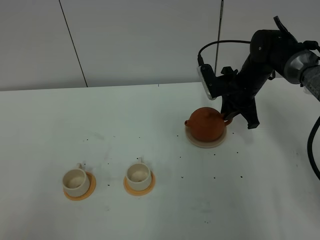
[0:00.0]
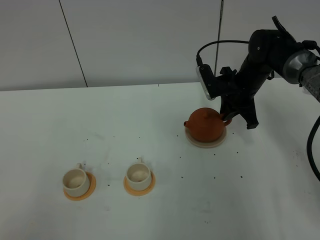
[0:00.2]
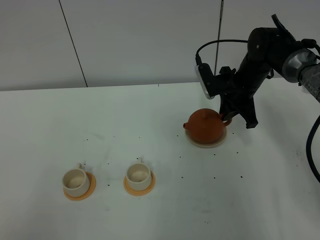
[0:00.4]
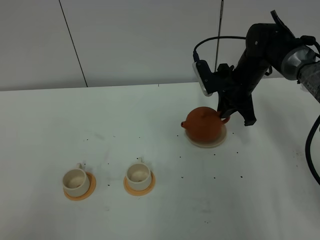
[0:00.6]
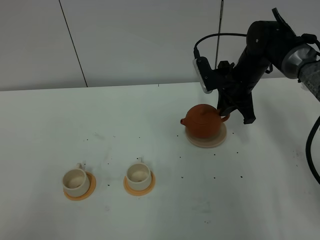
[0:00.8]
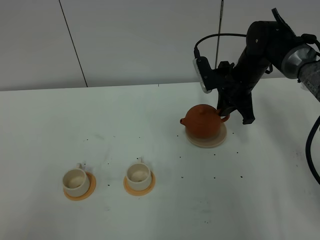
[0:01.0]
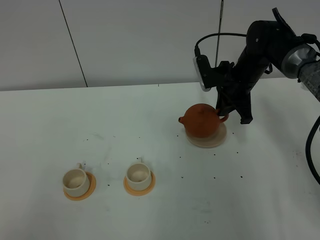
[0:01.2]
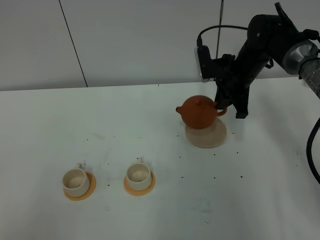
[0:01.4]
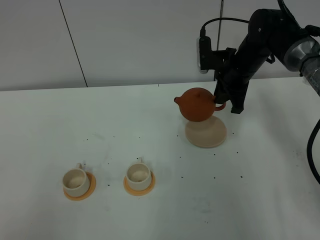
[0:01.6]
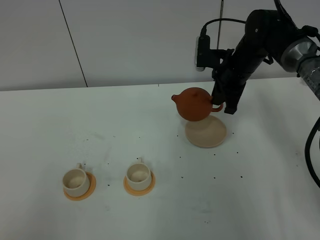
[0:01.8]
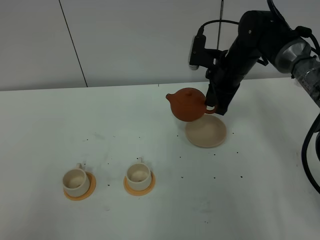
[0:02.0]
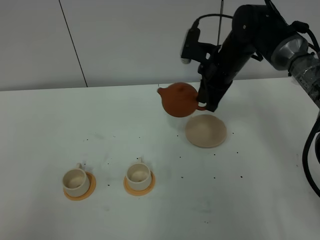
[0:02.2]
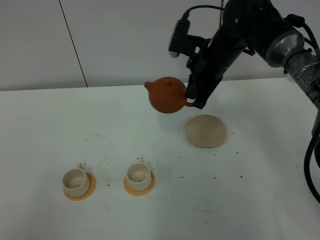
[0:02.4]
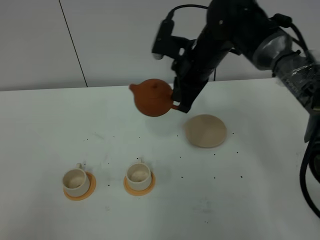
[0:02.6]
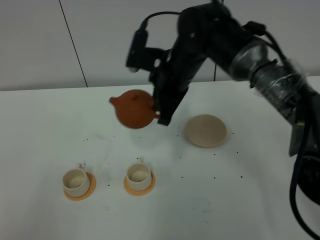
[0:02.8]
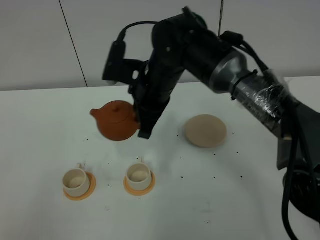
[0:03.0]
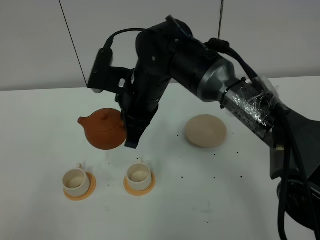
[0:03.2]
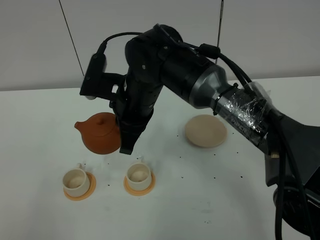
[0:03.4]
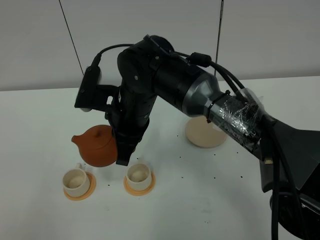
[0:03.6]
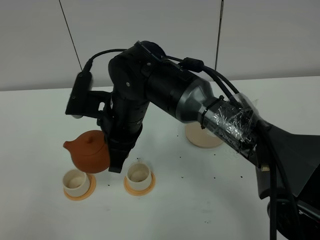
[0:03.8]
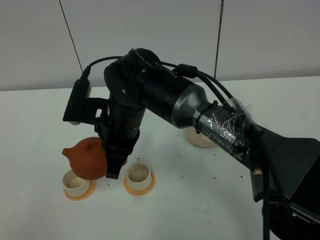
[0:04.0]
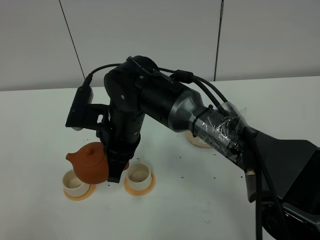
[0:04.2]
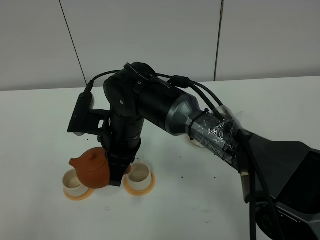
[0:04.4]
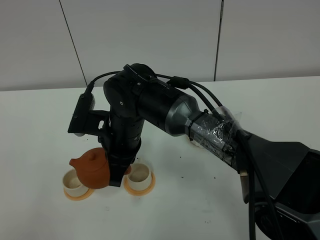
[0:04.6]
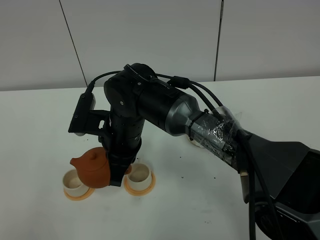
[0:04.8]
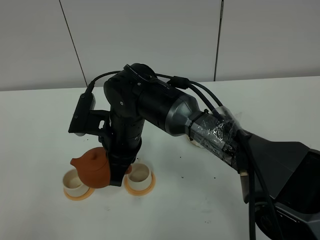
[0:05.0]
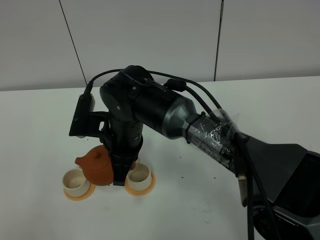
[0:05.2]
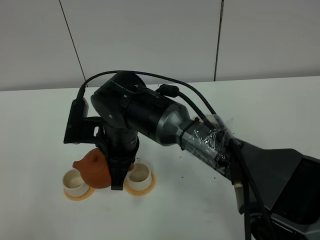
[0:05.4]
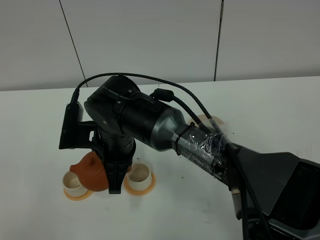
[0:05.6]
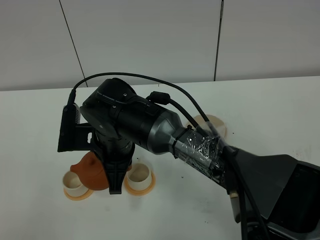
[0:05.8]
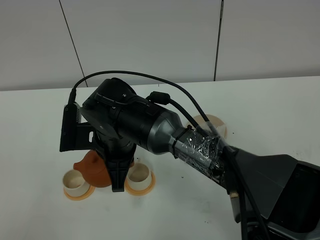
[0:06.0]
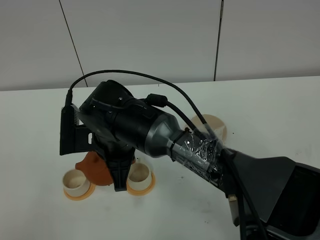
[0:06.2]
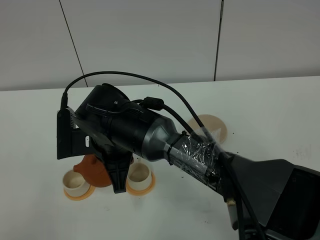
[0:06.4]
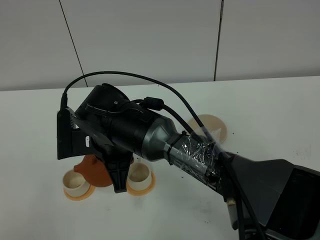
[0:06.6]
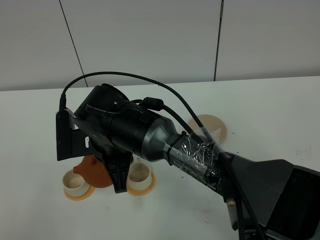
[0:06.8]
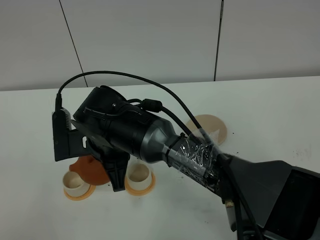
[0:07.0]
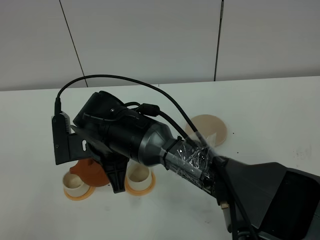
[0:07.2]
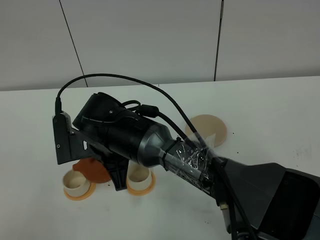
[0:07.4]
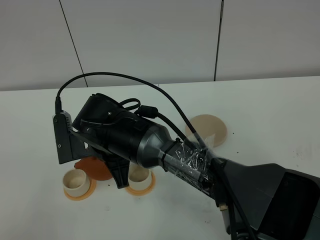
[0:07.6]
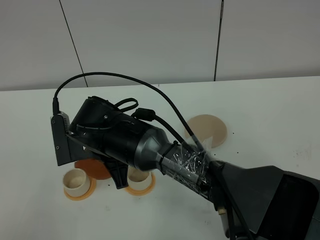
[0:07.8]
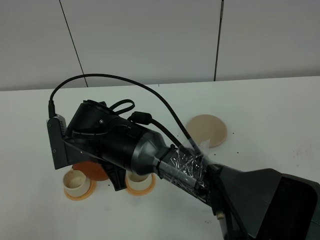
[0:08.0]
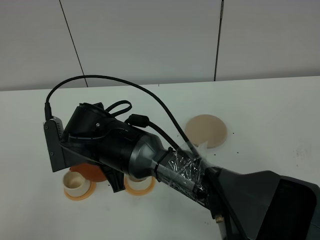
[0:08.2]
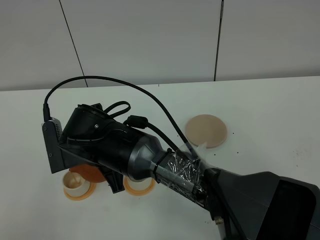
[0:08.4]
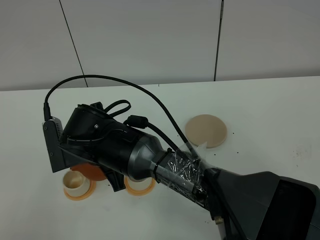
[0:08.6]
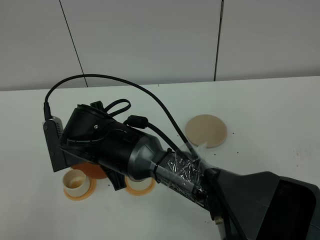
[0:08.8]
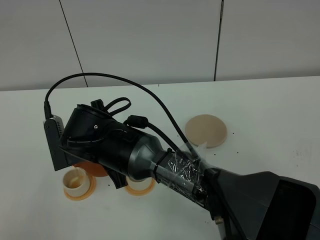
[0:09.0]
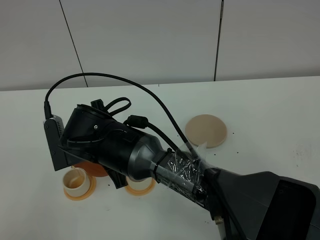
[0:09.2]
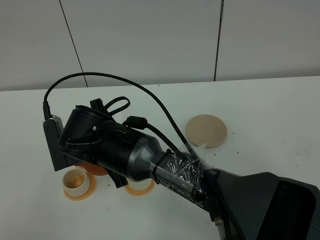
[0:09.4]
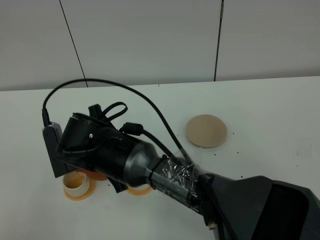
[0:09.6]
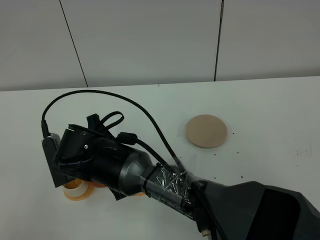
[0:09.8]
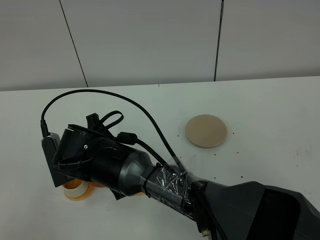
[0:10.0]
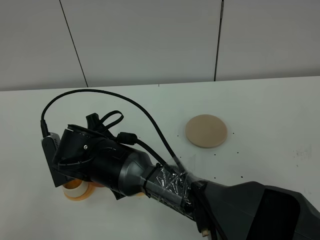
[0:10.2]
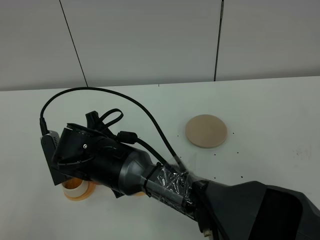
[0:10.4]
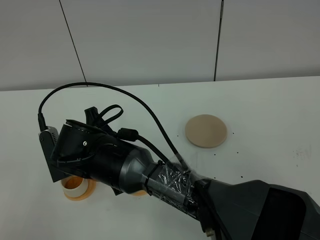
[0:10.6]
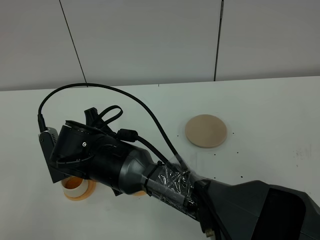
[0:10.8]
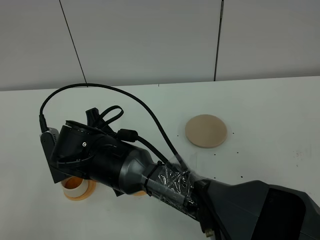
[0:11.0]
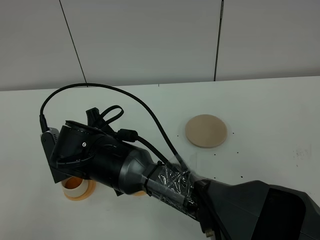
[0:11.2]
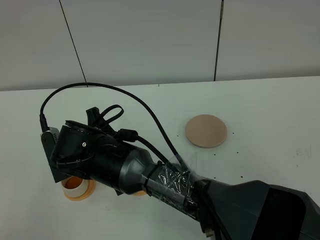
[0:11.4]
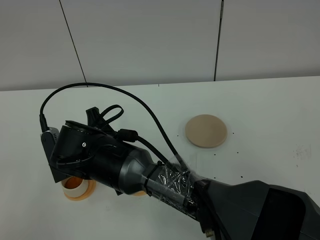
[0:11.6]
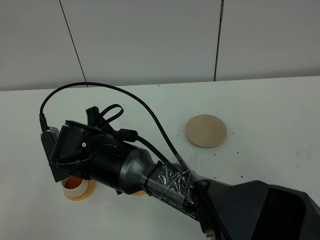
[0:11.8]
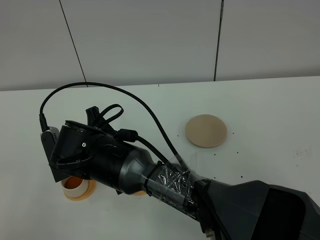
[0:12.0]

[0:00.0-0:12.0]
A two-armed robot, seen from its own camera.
Task of the whole recording: grasp the brown teapot and pour the tea into the two white teacups one by one, put the brown teapot back in its original place.
0:00.0 to 0:01.6: There are only small adjustments of the grippers.
0:01.6 to 0:03.0: The right gripper shifts about 20 cm to the left and backward.
0:03.0 to 0:04.4: The right gripper is displaced to the left and downward by about 10 cm.
0:04.4 to 0:06.0: The grippers stay close to where they were, moving slightly.
0:06.0 to 0:07.6: The grippers stay close to where they were, moving slightly.
0:07.6 to 0:10.4: The grippers make only small movements.
0:10.4 to 0:12.0: Neither gripper changes place.

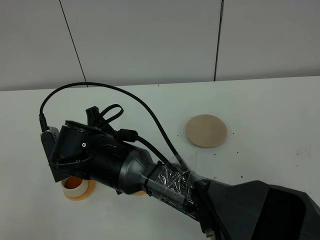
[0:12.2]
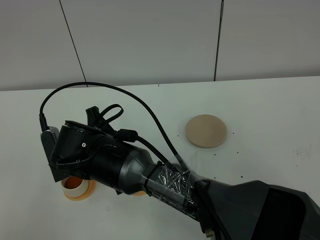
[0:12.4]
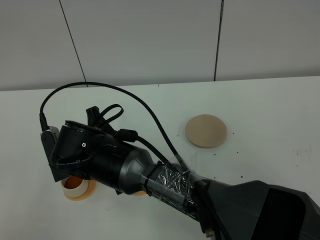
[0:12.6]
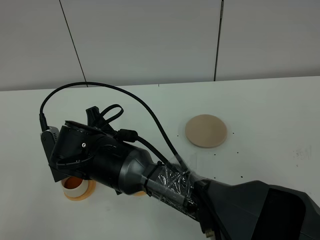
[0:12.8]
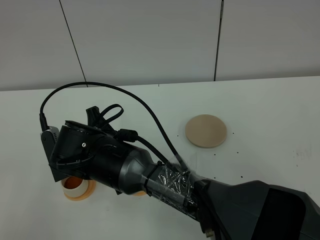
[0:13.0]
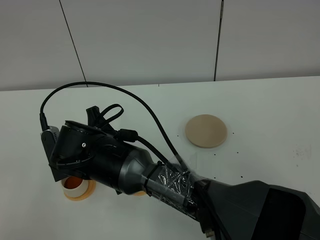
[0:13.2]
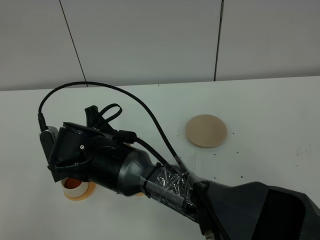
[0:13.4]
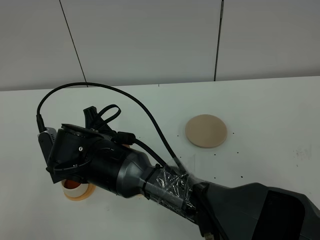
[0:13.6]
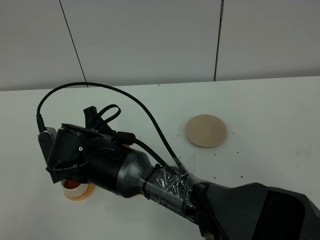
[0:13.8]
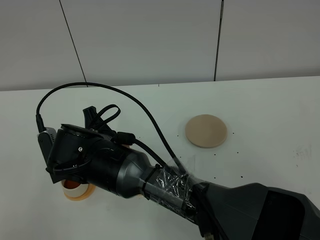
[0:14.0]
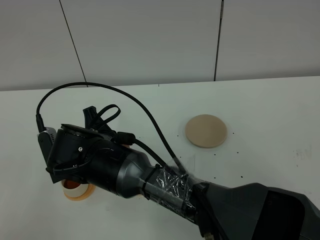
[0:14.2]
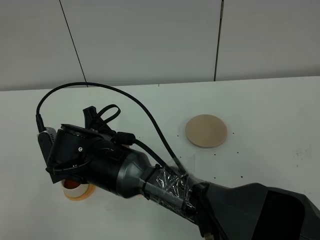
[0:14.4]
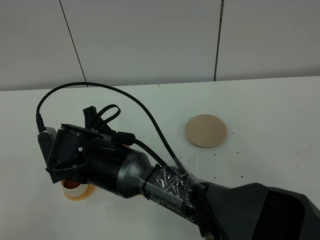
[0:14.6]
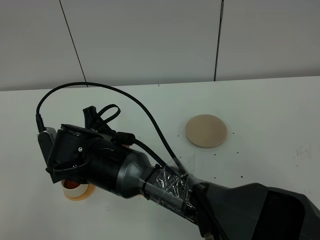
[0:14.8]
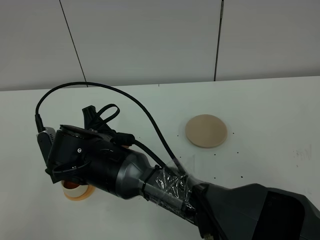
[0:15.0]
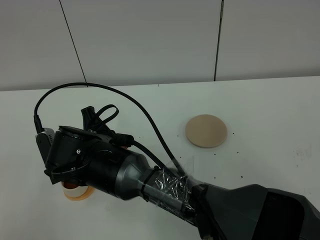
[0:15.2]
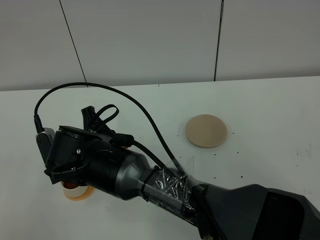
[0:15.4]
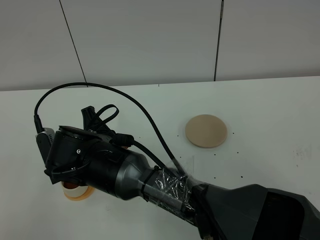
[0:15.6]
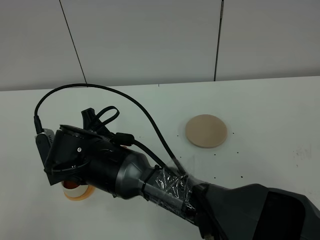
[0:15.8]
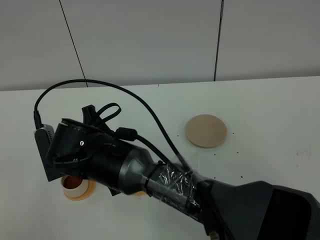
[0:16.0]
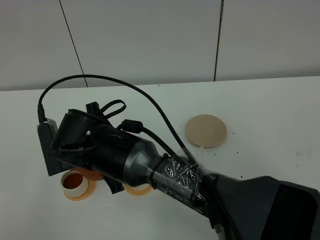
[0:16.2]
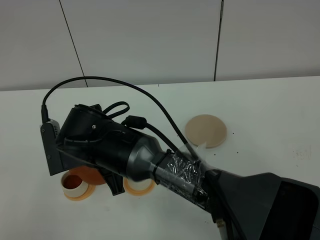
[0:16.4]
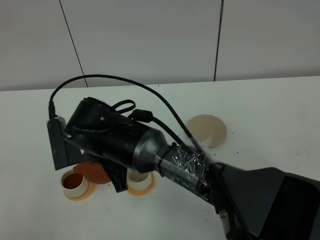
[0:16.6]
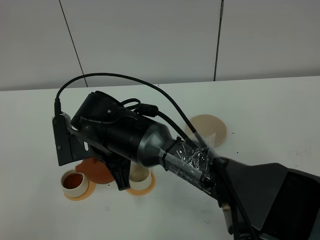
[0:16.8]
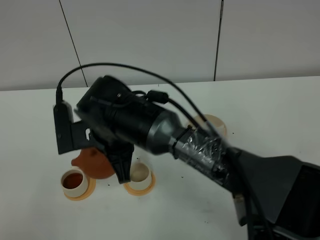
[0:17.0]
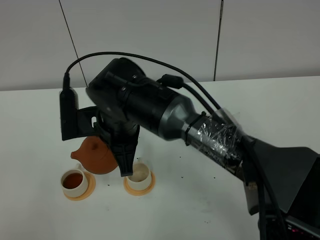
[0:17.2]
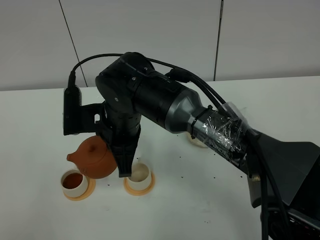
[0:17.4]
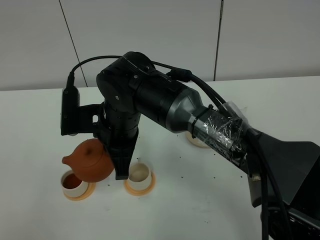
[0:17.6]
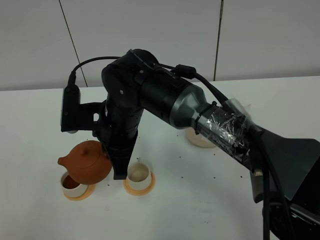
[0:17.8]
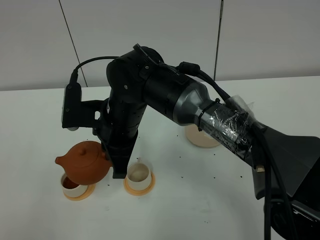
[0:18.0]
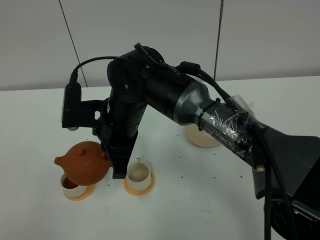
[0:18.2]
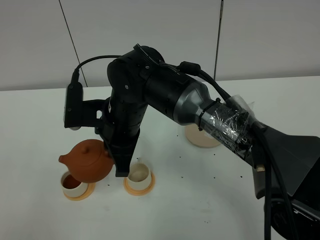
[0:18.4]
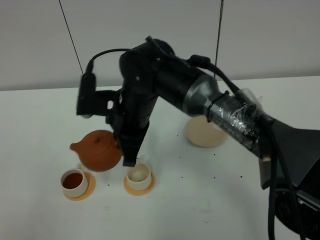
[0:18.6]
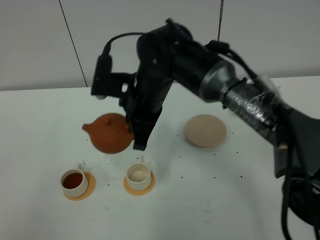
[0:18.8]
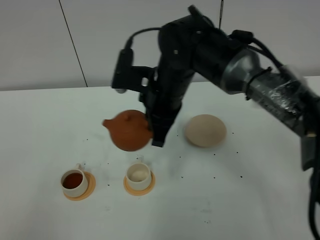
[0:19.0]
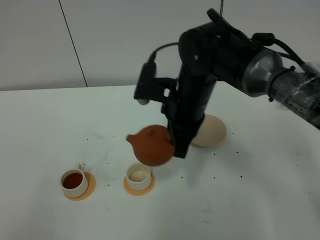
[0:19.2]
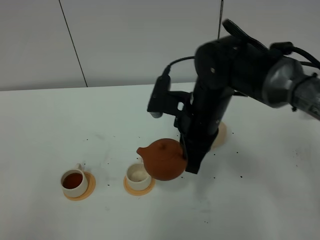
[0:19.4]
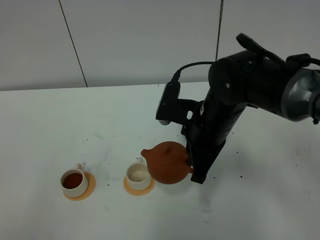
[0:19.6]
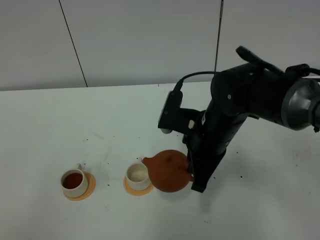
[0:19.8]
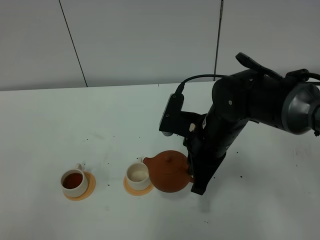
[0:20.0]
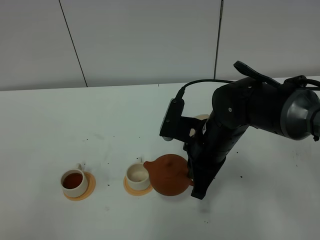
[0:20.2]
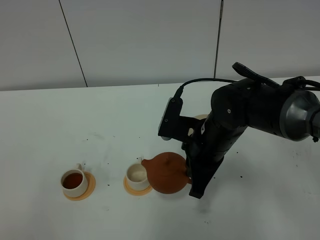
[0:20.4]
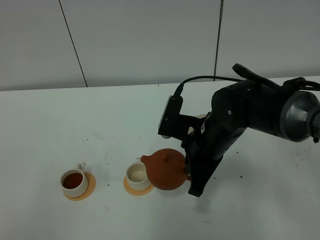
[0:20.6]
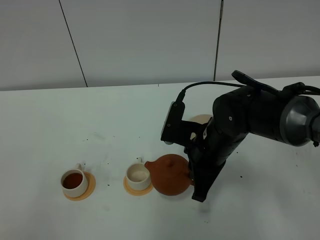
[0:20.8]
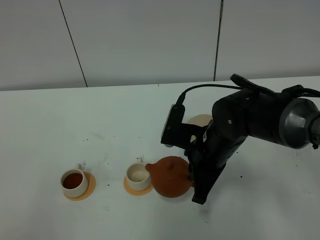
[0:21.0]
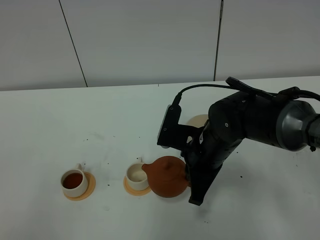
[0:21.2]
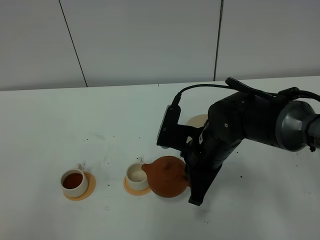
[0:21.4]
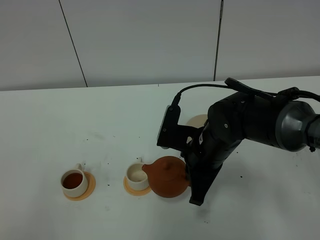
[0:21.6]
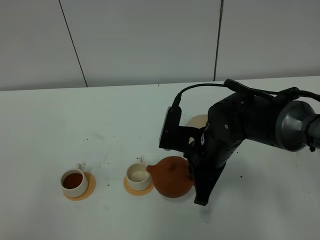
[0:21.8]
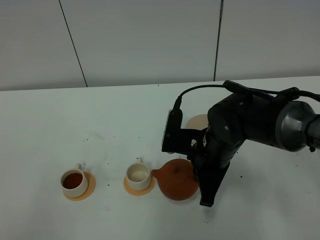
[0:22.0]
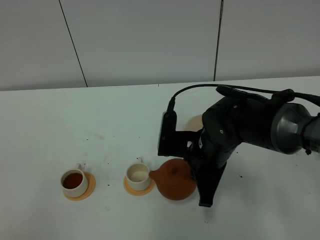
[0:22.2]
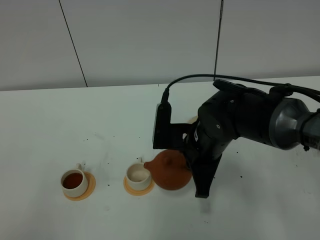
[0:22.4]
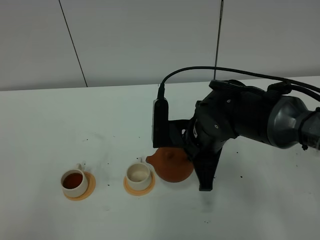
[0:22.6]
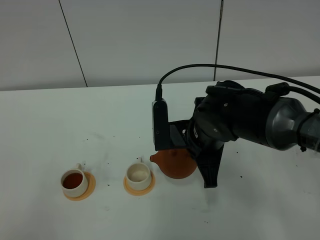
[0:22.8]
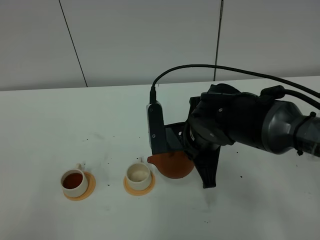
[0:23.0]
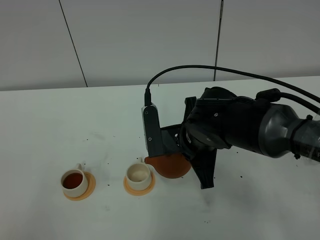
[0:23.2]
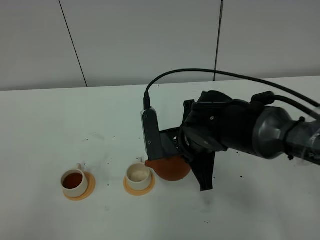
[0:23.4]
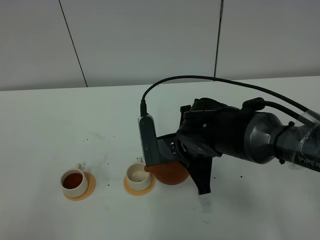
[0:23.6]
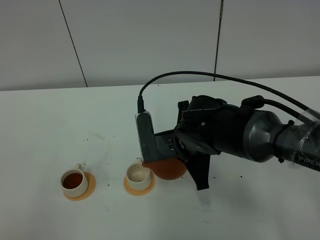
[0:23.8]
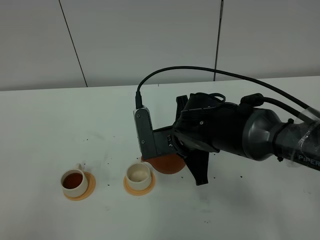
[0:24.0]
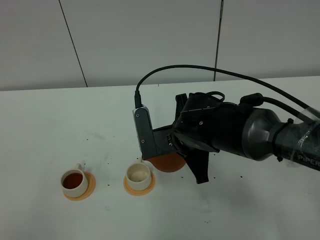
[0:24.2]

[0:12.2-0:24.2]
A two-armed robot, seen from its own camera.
Task of the whole recording: grasp the brown teapot and pour the tea into the two white teacups one by one, put the brown teapot back in its original place.
Step, 0:12.2 to 0:17.0: Pour tea into the teacup with the right gripper.
0:12.2 to 0:15.2: Both grippers stay about where they are.
0:15.2 to 0:16.6: There are only small adjustments of the grippers.
0:16.6 to 0:18.2: The right gripper shifts by some 5 cm.
0:18.2 to 0:19.8: The right gripper travels to the right by some 15 cm.
0:19.8 to 0:21.2: The grippers move only a little.
0:22.6 to 0:24.2: There are only small adjustments of the grippers.
